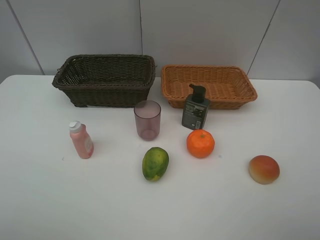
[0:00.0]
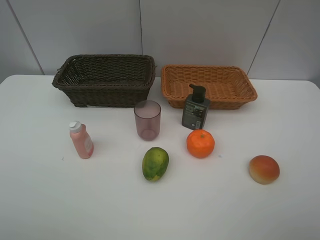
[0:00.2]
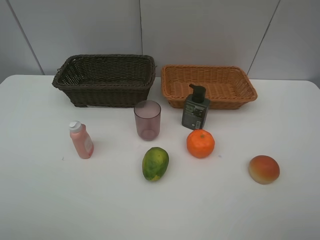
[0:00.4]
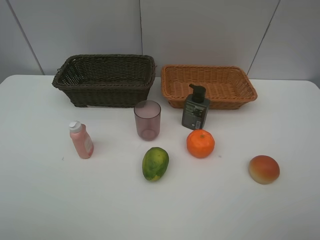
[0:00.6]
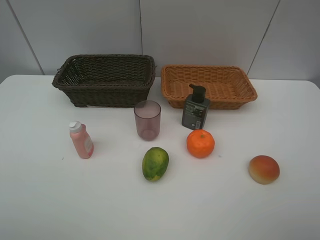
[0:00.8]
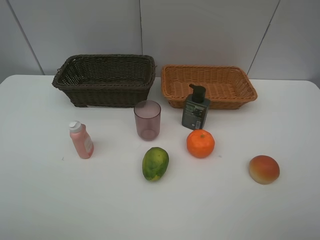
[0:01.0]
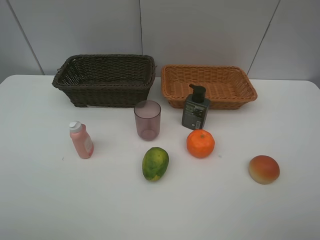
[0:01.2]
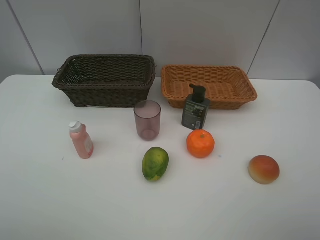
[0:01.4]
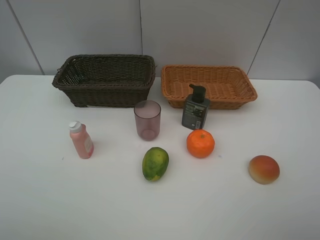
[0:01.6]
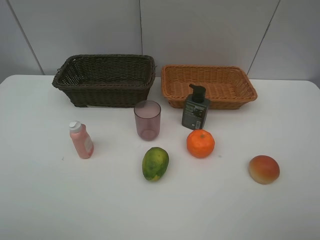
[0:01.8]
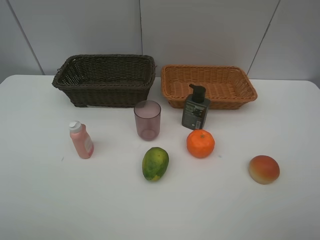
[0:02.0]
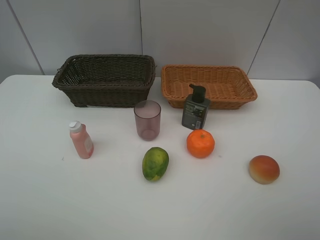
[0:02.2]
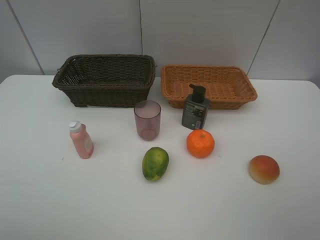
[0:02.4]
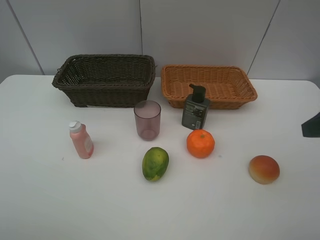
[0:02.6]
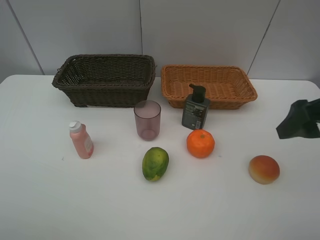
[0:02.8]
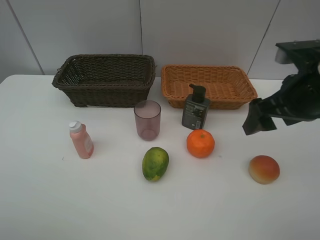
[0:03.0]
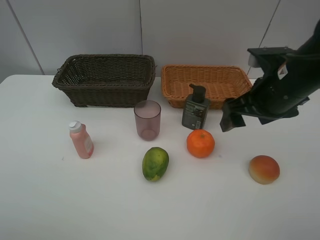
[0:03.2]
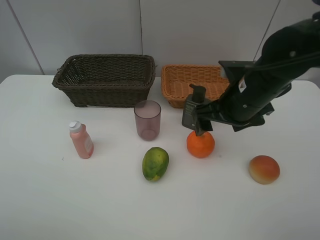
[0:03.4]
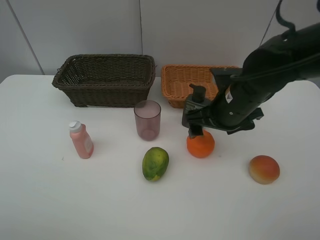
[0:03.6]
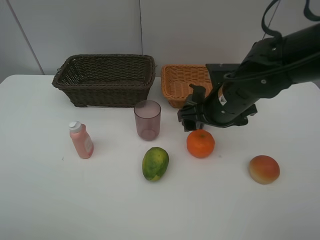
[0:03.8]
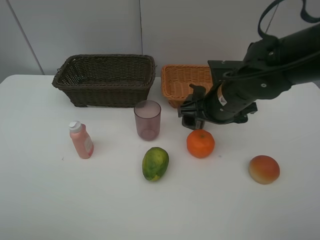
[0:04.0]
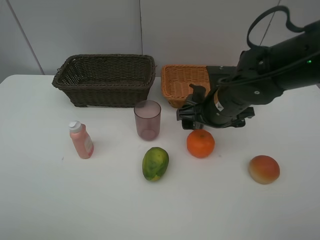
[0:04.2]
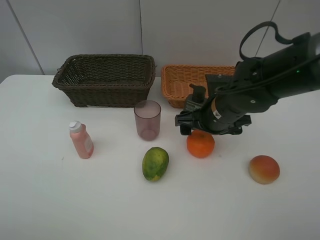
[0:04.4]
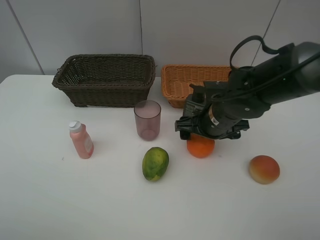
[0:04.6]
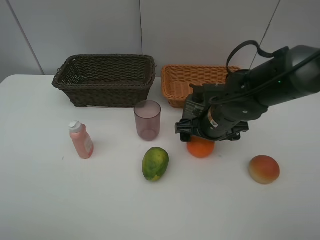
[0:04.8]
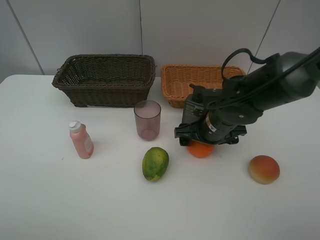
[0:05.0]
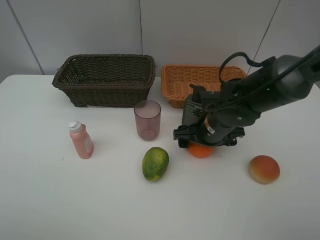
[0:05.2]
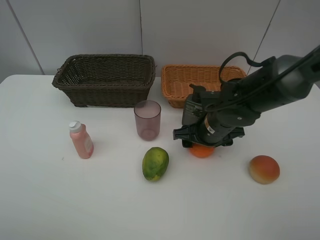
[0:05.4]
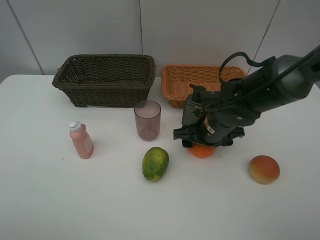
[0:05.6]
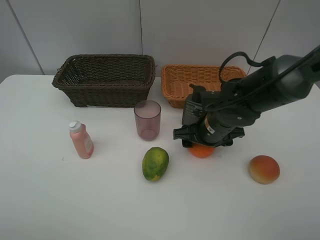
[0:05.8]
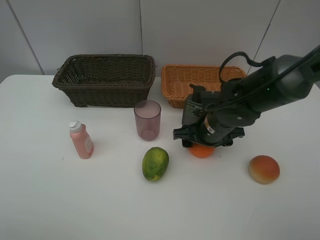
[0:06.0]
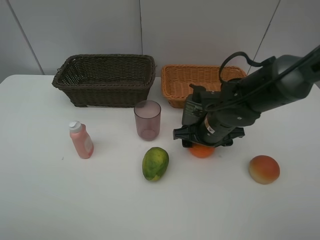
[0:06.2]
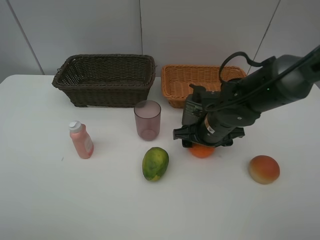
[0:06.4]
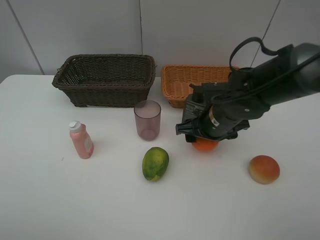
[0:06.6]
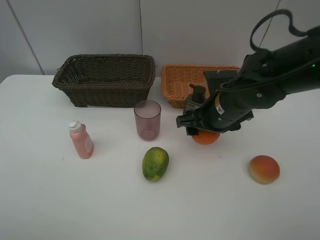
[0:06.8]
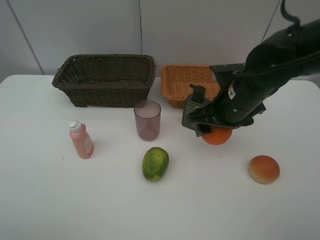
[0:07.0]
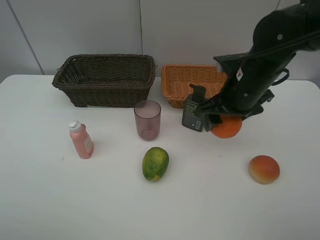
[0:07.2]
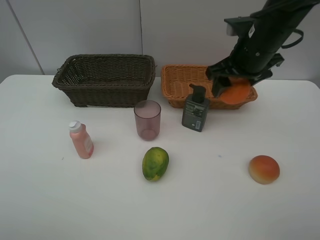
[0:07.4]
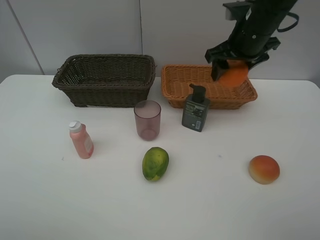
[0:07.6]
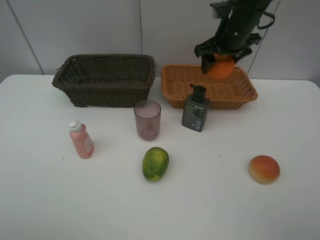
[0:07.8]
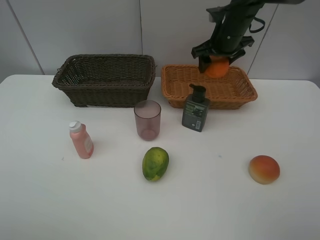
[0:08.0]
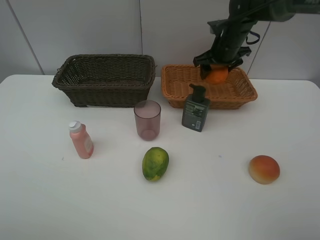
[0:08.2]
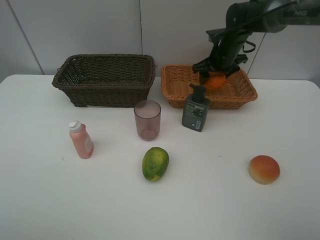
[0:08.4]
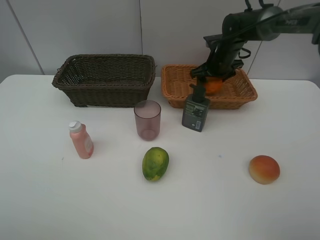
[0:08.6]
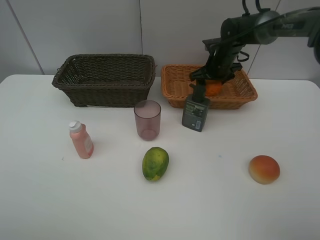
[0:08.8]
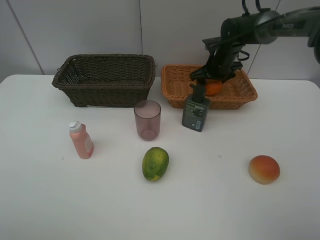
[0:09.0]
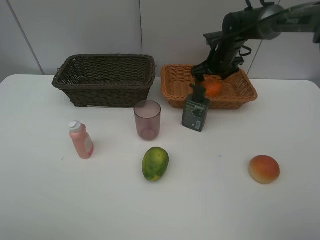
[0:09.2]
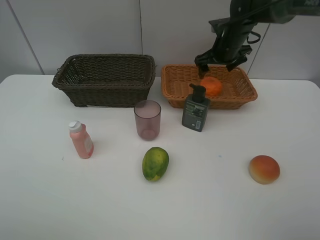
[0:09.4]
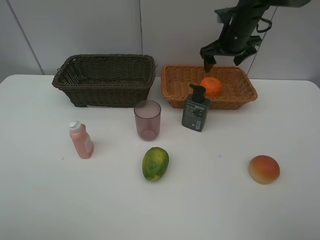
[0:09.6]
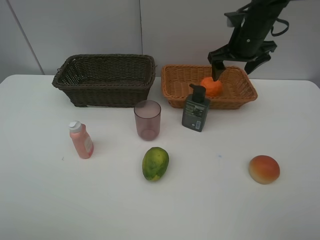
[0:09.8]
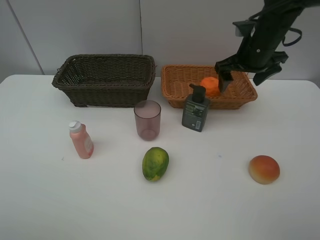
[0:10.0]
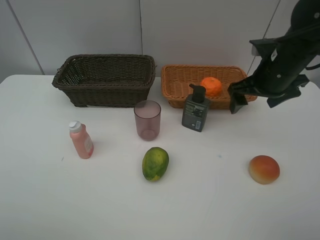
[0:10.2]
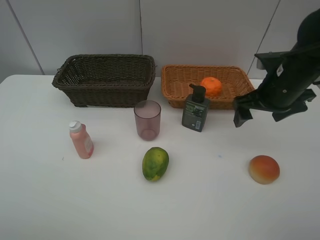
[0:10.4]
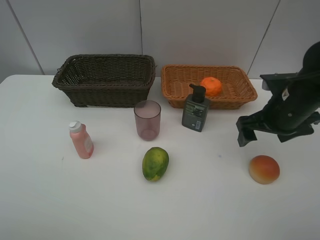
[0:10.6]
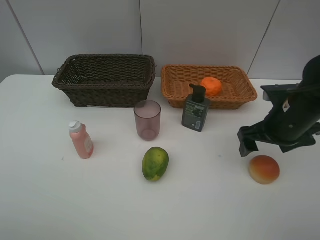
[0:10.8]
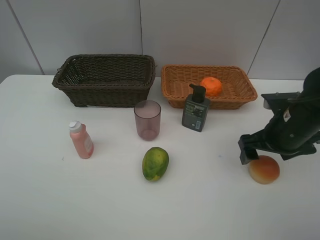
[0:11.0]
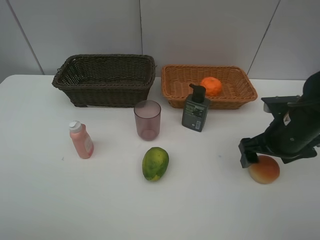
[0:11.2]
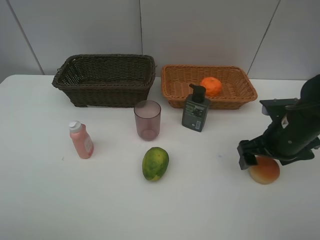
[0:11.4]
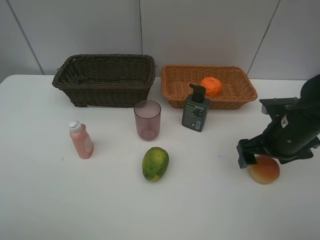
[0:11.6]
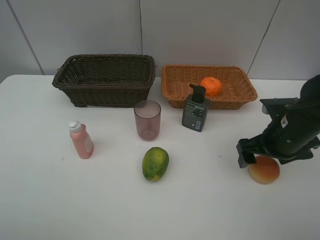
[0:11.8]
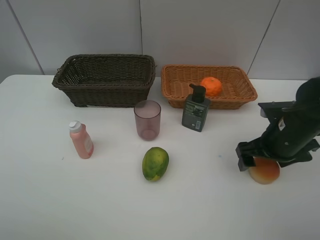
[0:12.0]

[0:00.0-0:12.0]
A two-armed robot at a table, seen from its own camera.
Task of the whole recording: place multiple objects separately in different baskets.
0:00.0 to 0:01.6: Both grippers stay put.
0:01.6 to 0:03.0: The right gripper travels forward by about 25 cm.
0:03.0 to 0:04.4: The right gripper is displaced downward, to the left and forward by some 15 cm.
0:04.4 to 0:06.0: The grippers stay close to where they were, moving slightly.
0:06.0 to 0:07.6: The right gripper moves upward and forward, roughly 20 cm.
0:07.6 to 0:09.0: The right gripper moves downward and forward, about 20 cm.
0:09.0 to 0:10.4: The right gripper goes approximately 20 cm backward, and opens its fingers.
0:10.4 to 0:12.0: The right gripper heads downward, covering roughly 5 cm.

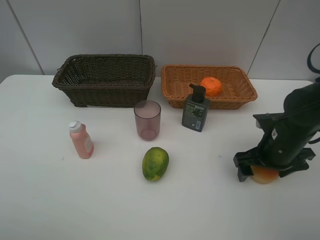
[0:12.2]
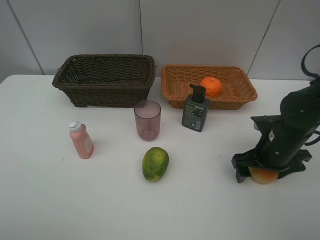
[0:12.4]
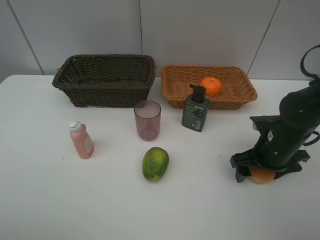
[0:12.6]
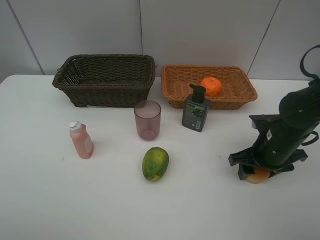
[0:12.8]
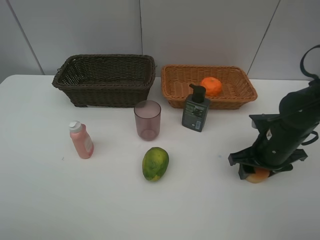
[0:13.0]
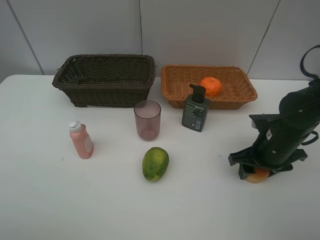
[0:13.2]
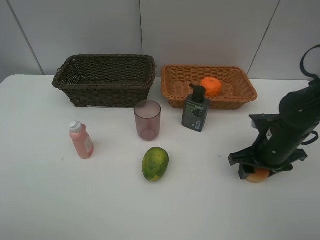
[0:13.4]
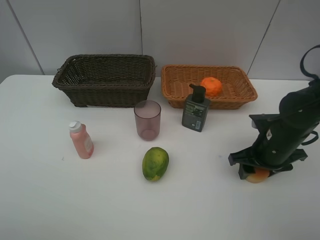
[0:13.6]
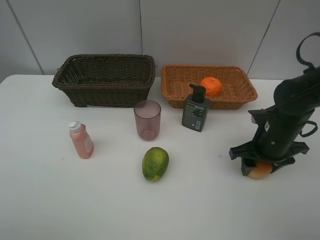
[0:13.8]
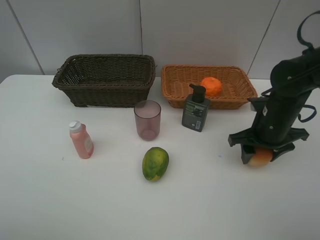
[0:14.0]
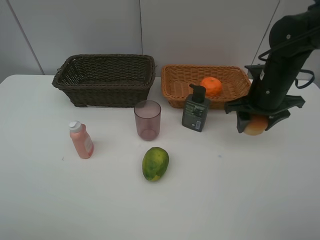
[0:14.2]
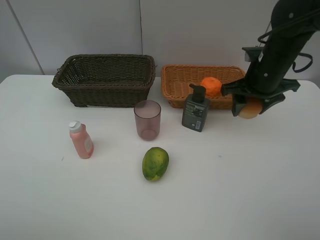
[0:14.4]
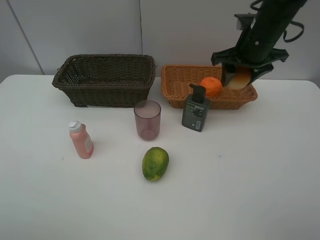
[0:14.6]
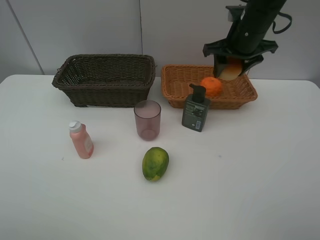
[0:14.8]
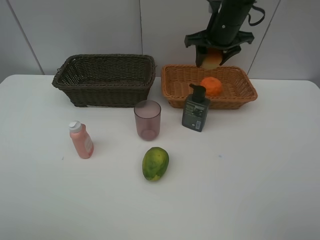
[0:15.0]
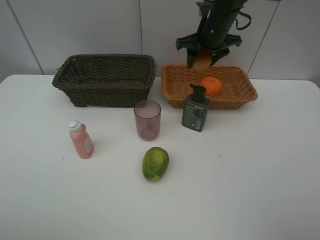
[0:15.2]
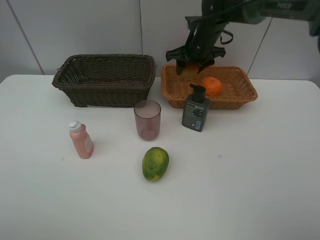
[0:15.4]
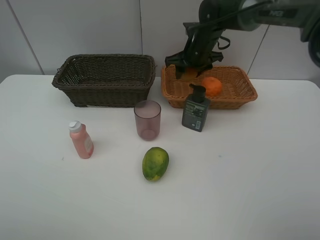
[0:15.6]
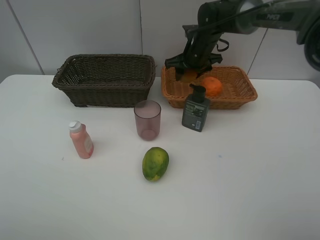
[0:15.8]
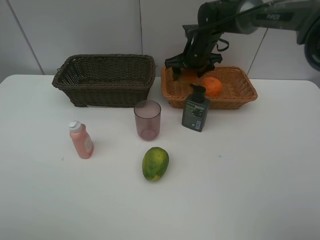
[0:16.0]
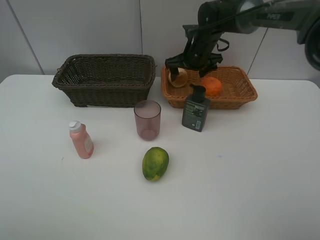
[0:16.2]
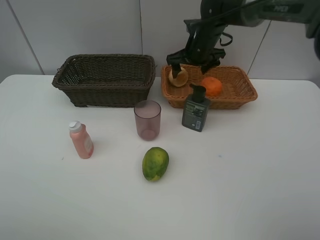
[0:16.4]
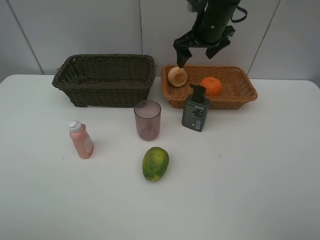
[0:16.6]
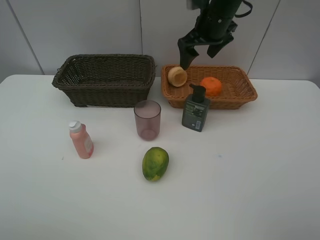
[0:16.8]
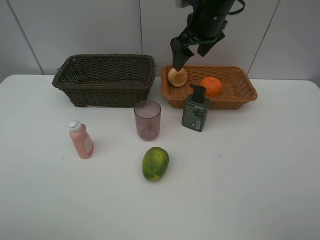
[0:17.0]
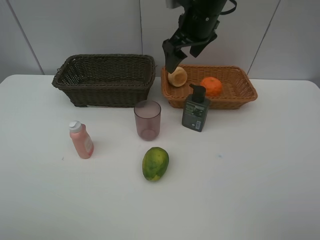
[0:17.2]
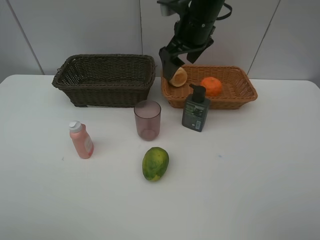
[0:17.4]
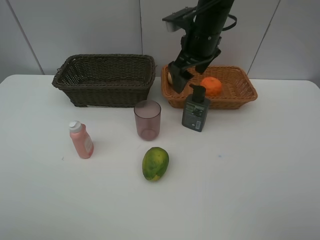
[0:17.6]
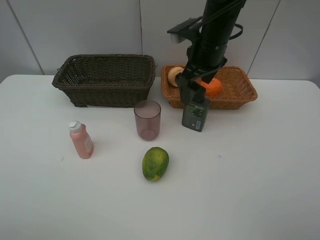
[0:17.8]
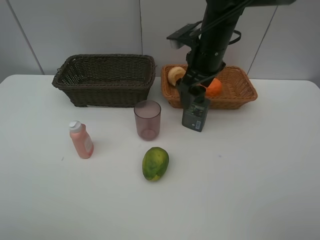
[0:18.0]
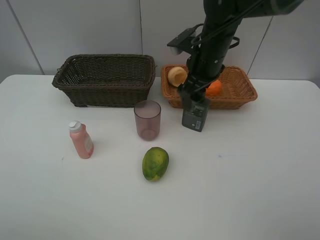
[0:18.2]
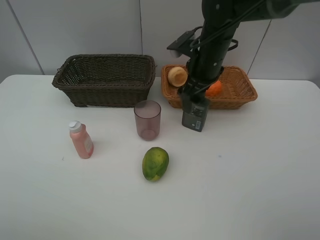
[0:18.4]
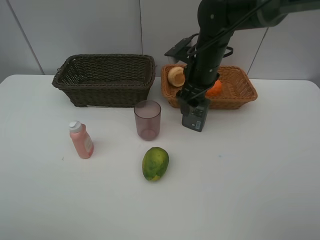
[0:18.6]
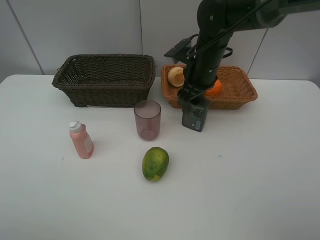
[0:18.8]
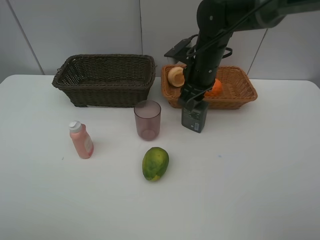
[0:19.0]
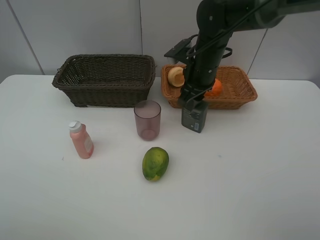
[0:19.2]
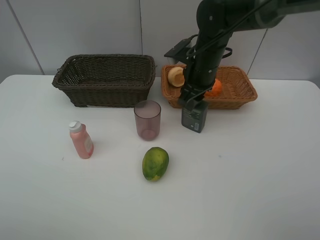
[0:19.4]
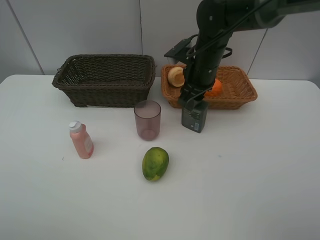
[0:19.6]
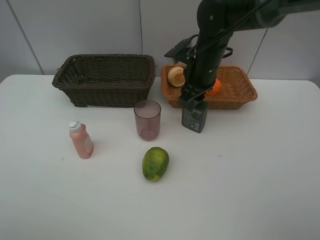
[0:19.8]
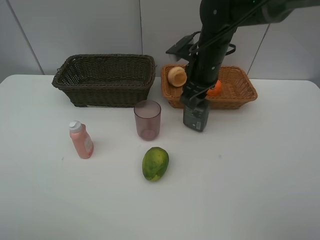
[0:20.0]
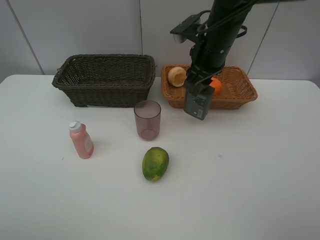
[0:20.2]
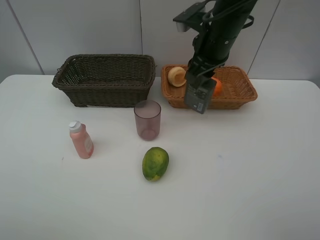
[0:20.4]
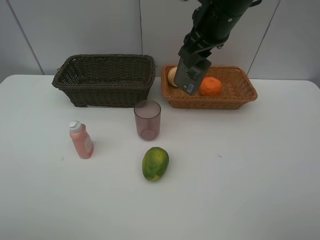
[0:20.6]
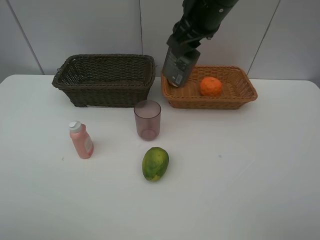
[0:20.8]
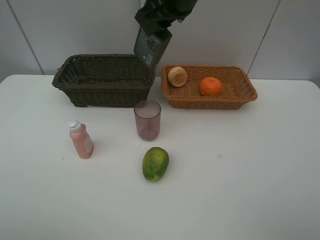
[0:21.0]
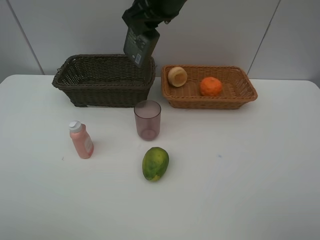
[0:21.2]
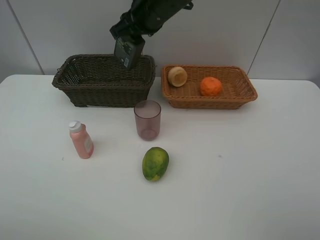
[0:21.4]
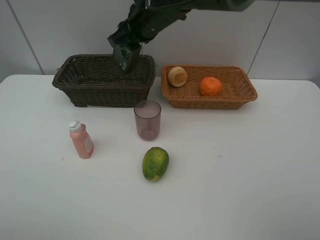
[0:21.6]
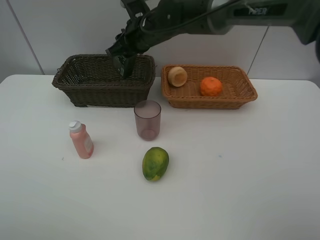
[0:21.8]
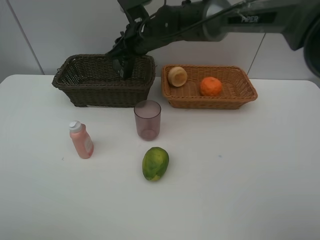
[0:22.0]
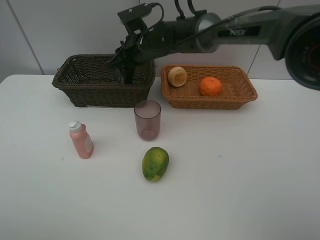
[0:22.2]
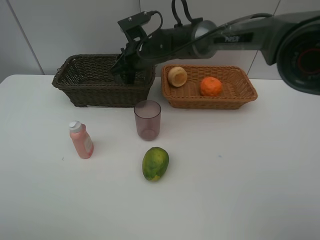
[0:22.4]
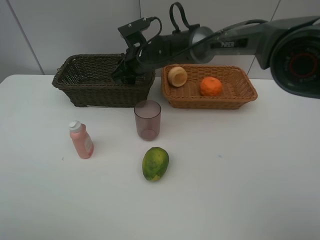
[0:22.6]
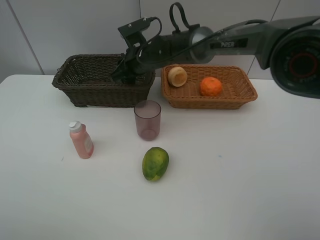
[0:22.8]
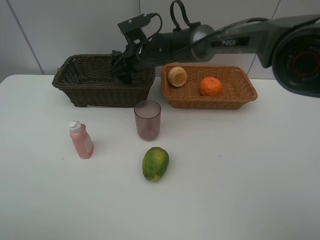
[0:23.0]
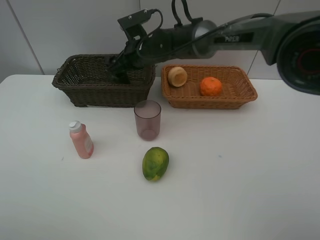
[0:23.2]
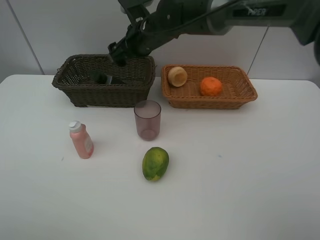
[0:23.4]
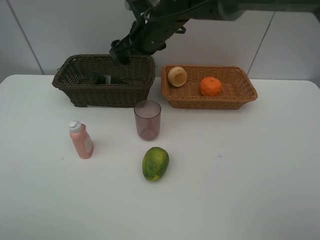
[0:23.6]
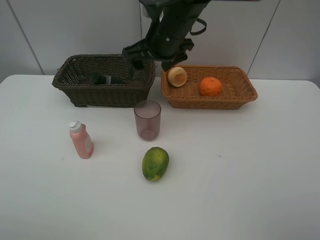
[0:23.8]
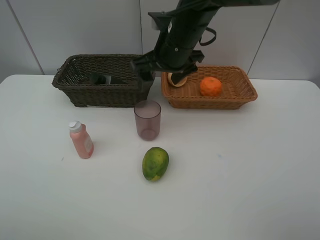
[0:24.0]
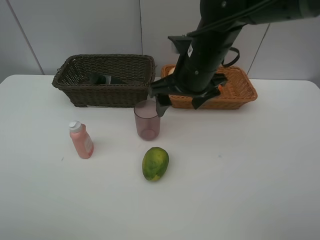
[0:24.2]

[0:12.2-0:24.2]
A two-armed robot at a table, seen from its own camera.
Task of the whole recording: place multiple objects separately in different baskets.
0:12.2 to 0:13.8: The right gripper closes up.
0:13.8 to 0:15.2: The right gripper goes roughly 25 cm forward, upward and to the left.
0:15.2 to 0:16.6: The right gripper moves approximately 5 cm downward and comes back, and opens its fingers.
0:16.6 to 0:18.2: The right gripper shifts roughly 5 cm backward.
0:18.2 to 0:19.8: The right gripper closes up.
0:19.8 to 0:21.2: The right gripper heads upward and to the left, covering roughly 15 cm.
0:21.2 to 0:22.6: The right gripper goes approximately 20 cm downward and forward.
0:22.6 to 0:24.2: The right gripper goes some 20 cm backward, to the right and upward, and opens up.
